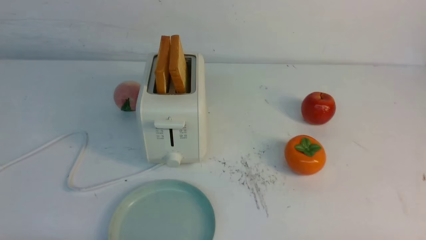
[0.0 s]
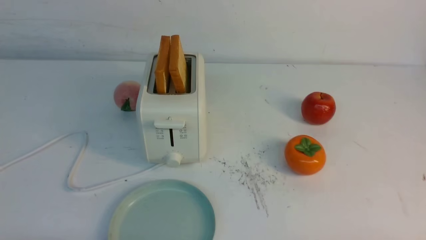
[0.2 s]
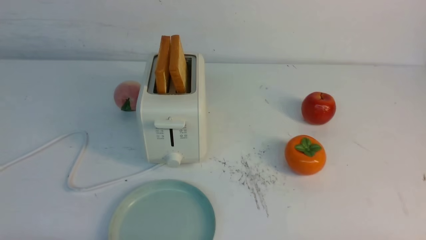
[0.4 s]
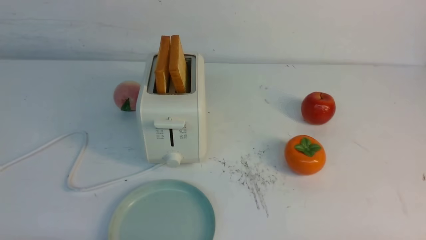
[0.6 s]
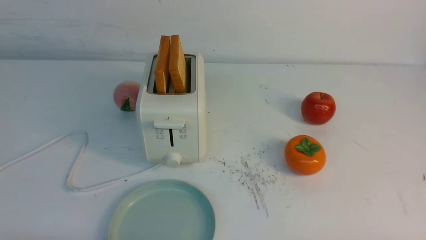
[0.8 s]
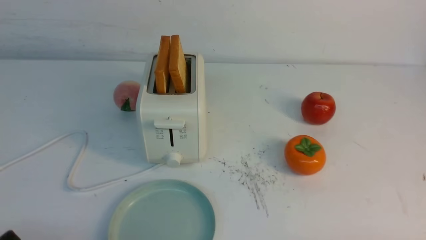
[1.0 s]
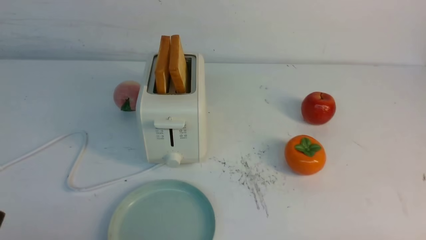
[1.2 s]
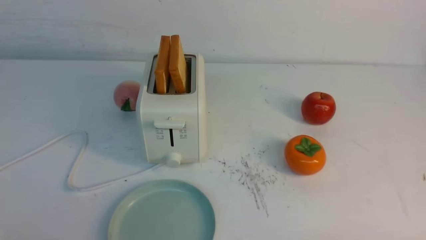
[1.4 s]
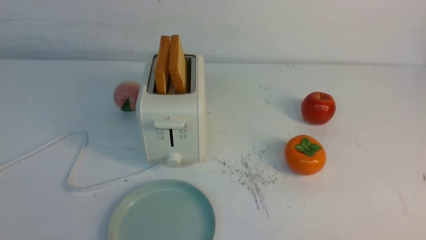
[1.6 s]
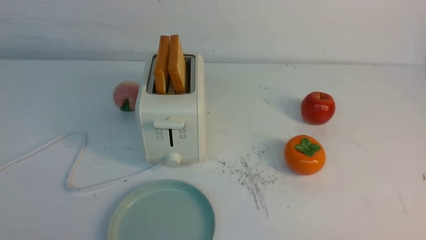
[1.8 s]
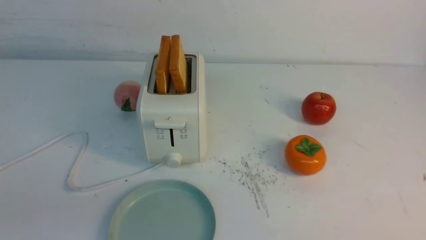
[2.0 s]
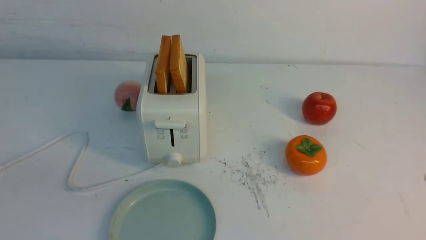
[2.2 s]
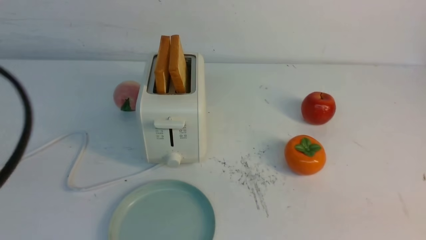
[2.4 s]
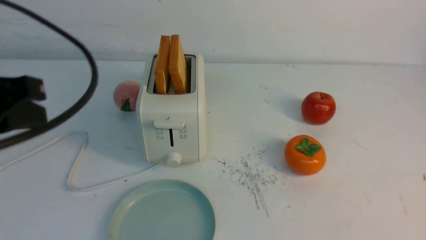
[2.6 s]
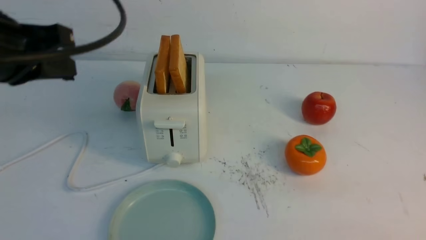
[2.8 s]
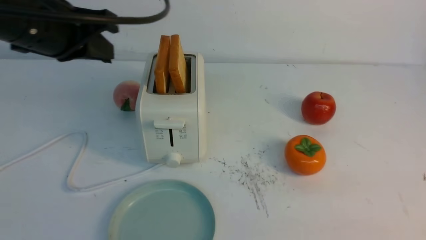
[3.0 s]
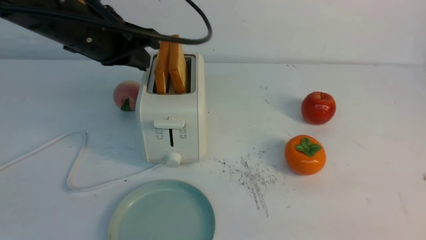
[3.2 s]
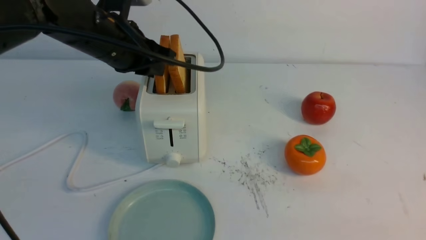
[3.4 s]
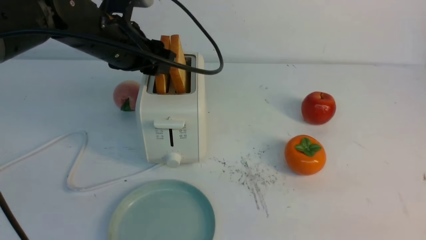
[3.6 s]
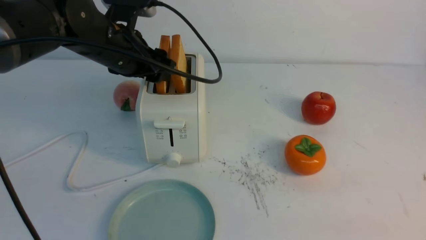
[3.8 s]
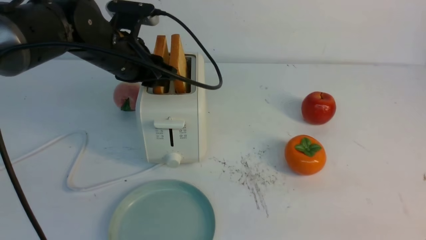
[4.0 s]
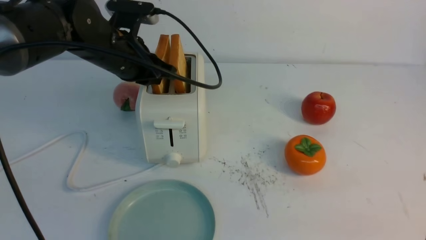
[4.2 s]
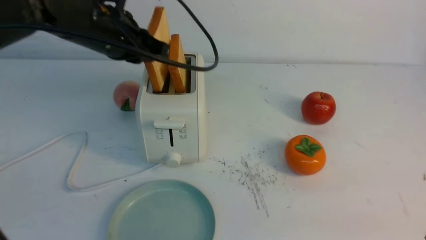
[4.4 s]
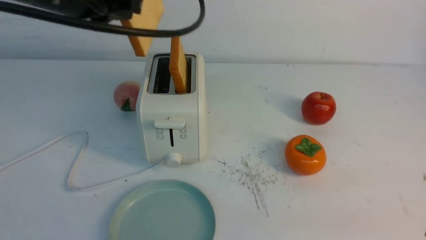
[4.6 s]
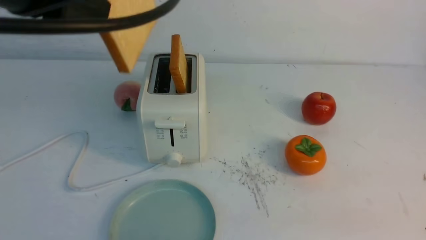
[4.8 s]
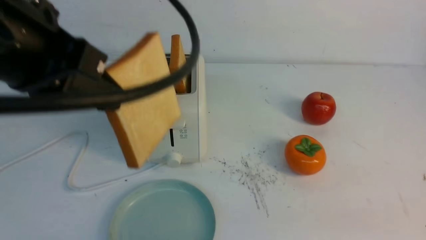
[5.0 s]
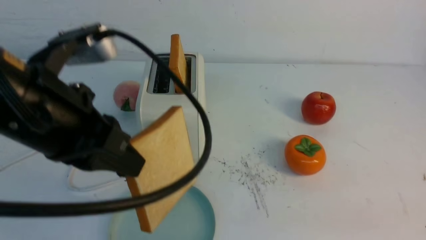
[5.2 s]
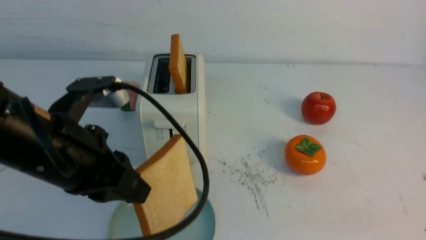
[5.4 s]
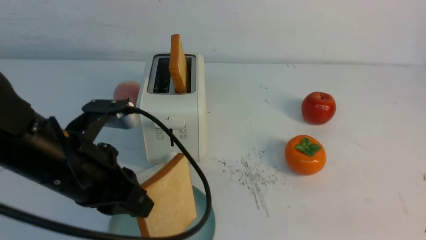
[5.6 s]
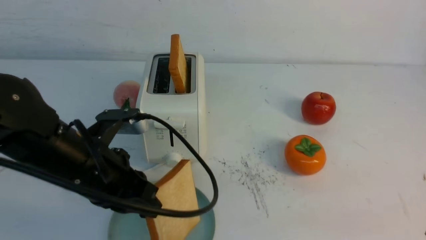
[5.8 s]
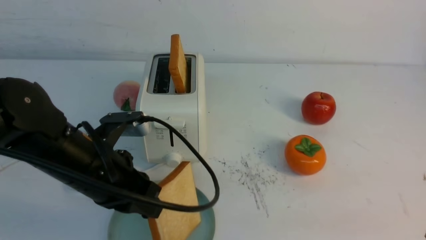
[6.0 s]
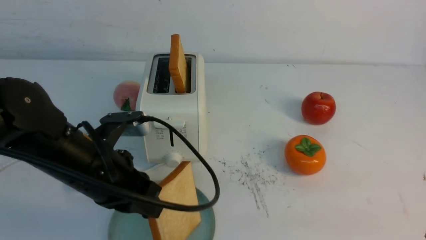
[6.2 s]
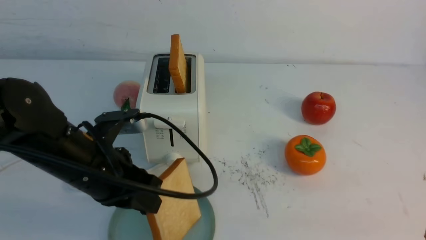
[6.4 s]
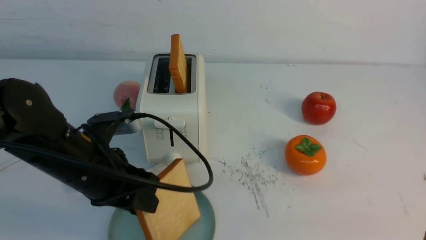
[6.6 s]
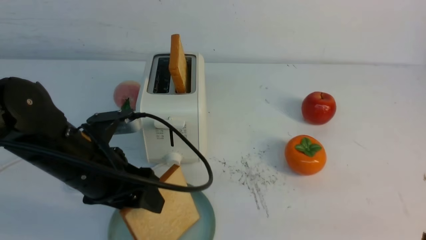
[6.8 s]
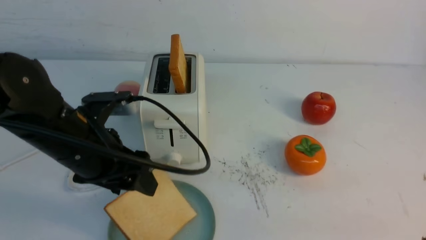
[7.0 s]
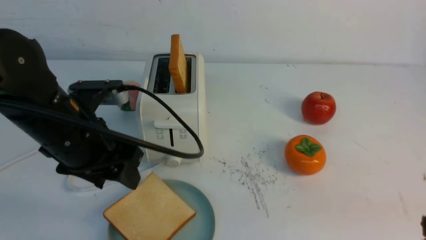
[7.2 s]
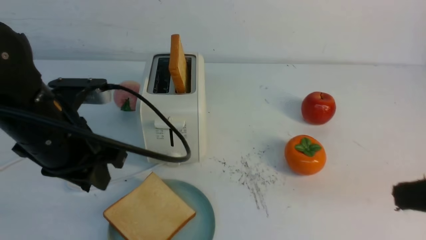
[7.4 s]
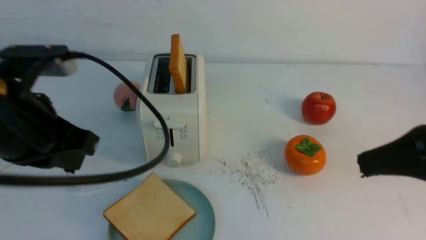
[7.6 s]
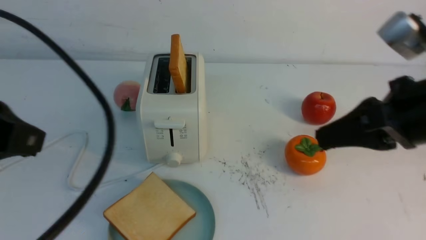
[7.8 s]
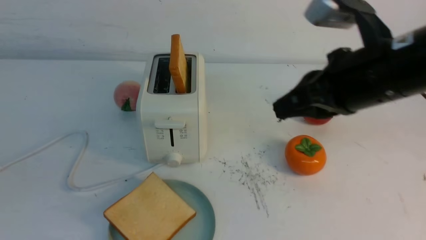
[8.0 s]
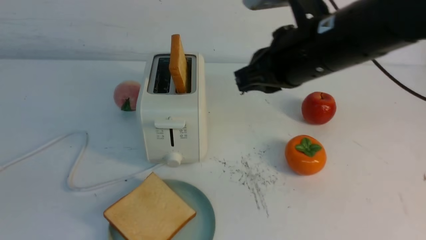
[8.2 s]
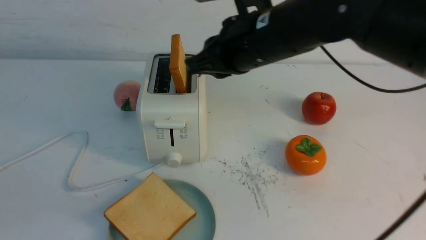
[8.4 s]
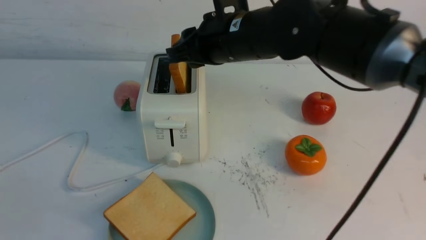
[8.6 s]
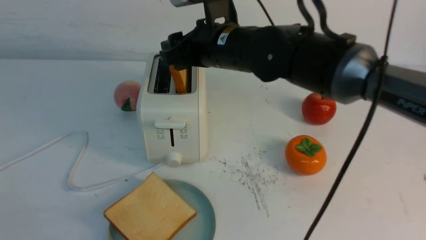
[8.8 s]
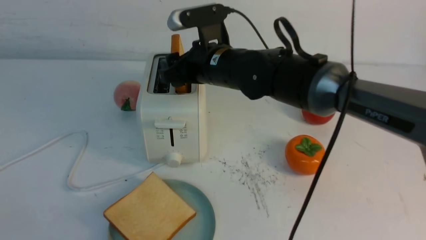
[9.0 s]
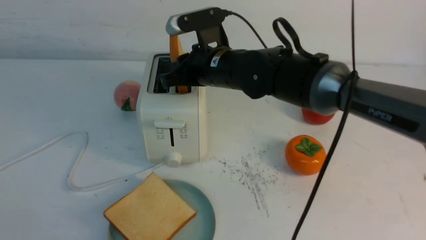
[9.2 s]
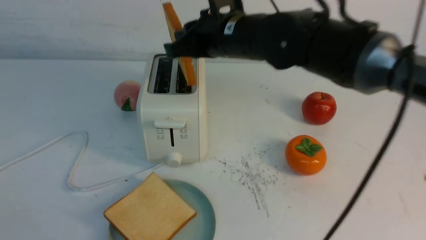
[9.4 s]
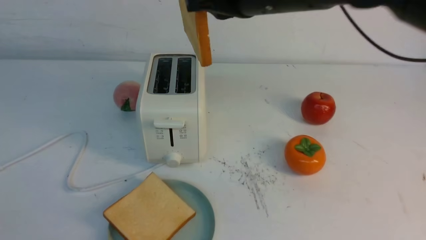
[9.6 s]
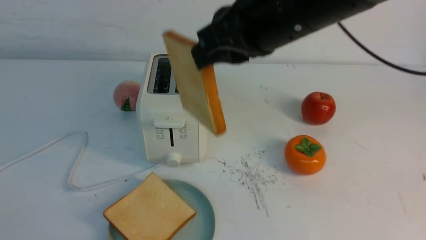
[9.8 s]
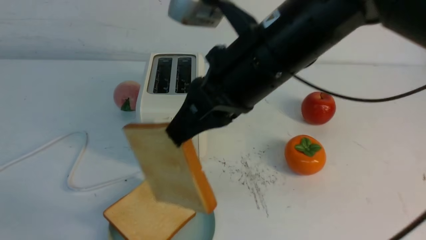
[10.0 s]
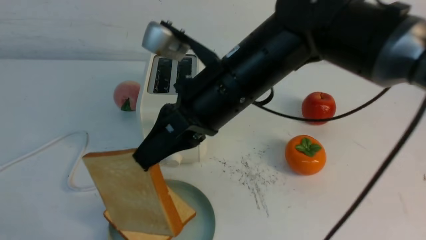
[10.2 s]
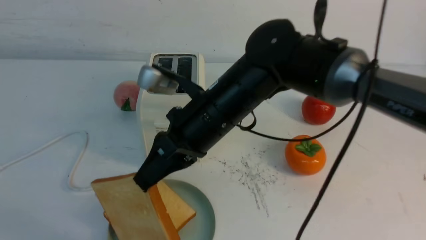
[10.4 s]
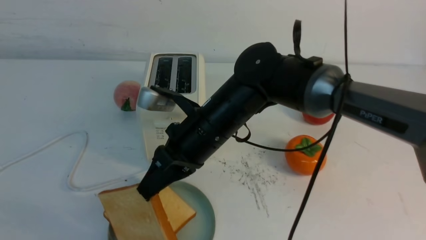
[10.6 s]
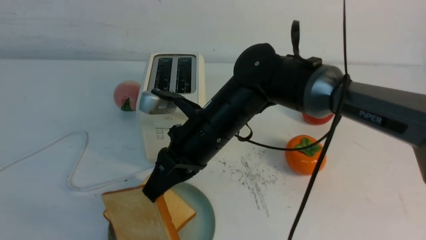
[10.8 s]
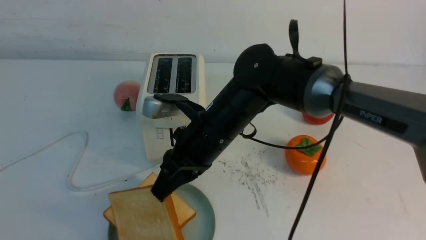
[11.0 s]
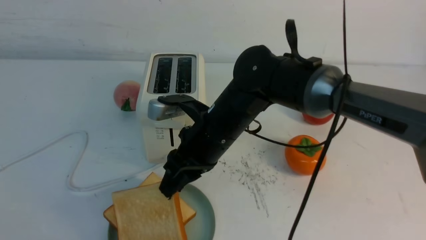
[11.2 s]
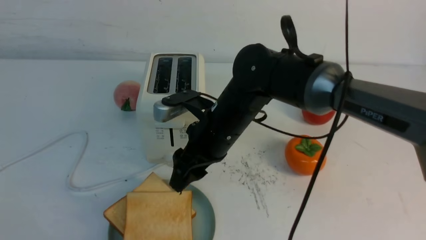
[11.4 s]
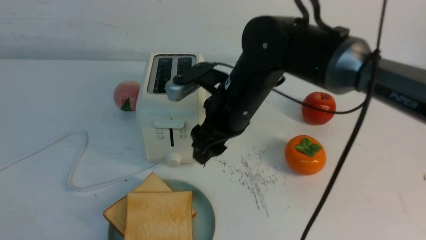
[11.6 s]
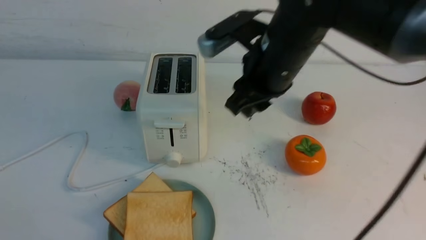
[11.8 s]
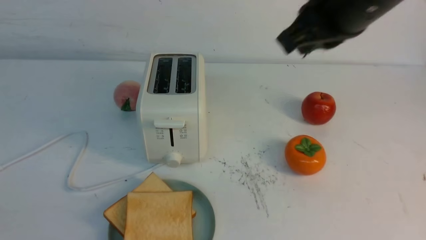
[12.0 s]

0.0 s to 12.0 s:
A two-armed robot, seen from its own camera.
Task of the whole recording: take toasted bread from bread machine on white table place on plate.
Step, 0.0 to 4.6 s: use the left arm to take out a slice of bread.
Step, 4.8 to 7.2 s: use the left arm to put a slice of bread into the empty plate.
Step, 7.4 to 9.6 s: use the right arm to take out a slice of bread.
Step, 9.8 to 11.2 s: use the right arm to put a slice of bread into the plate.
1.6 to 3.0 s: The left gripper moves forward and upward, roughly 30 cm.
3.0 to 4.4 s: The left gripper heads forward, covering some 5 cm, and opens, then closes once more.
4.4 to 6.0 s: The left gripper goes some 15 cm downward and backward.
6.0 to 7.6 s: The left gripper is displaced upward by roughly 10 cm, and opens and closes again. The right gripper heads forward and upward, covering roughly 10 cm.
7.6 to 9.0 s: The right gripper heads to the left and forward, covering roughly 30 cm, and opens its fingers. Meanwhile the left gripper travels backward by roughly 25 cm.
9.0 to 10.4 s: The right gripper heads backward, covering approximately 10 cm, and closes; the left gripper moves about 5 cm.
10.4 to 12.0 s: The right gripper heads upward and to the right, covering approximately 20 cm, and opens, then closes once more.

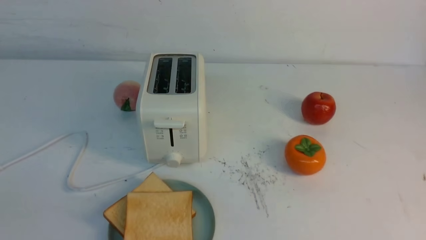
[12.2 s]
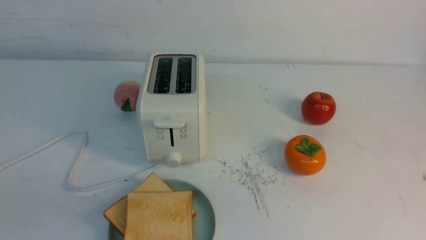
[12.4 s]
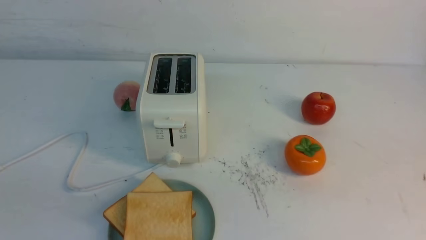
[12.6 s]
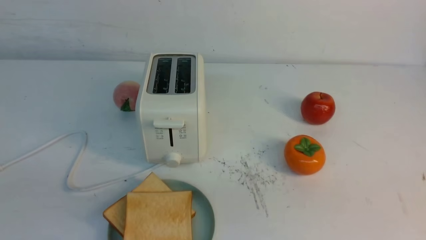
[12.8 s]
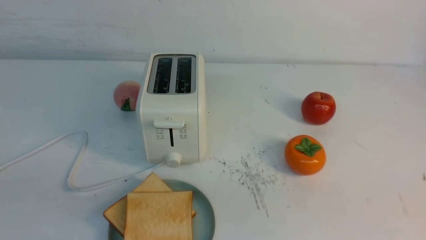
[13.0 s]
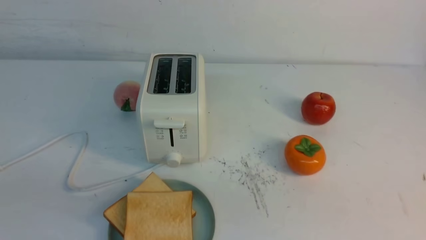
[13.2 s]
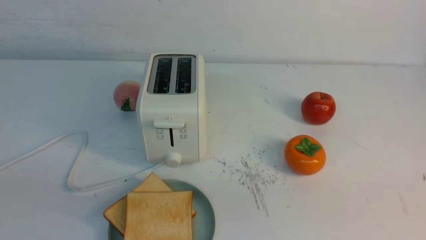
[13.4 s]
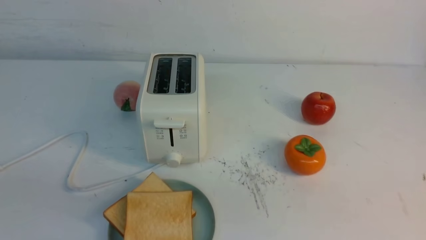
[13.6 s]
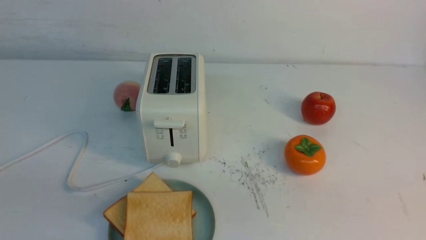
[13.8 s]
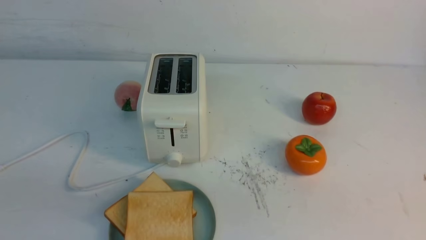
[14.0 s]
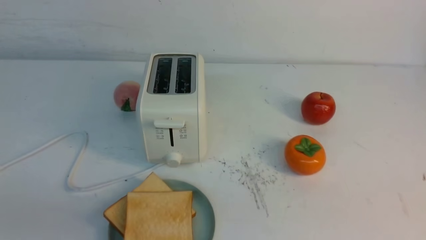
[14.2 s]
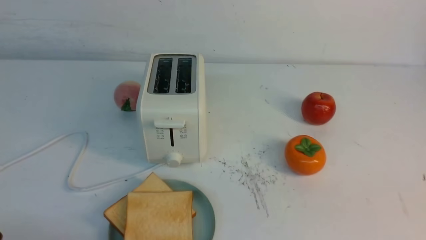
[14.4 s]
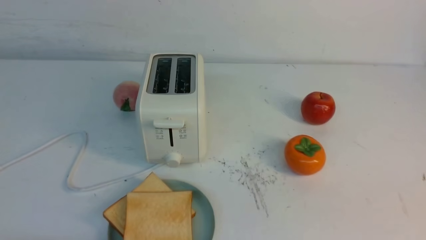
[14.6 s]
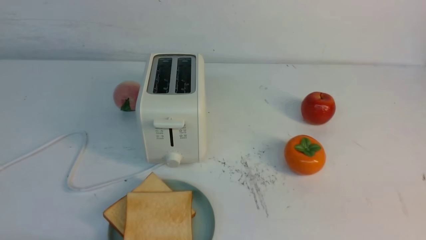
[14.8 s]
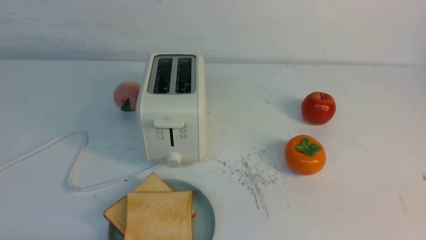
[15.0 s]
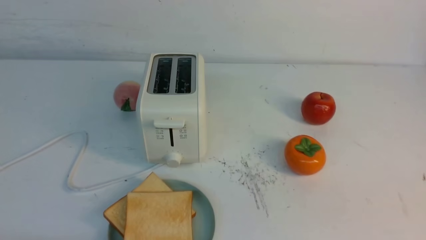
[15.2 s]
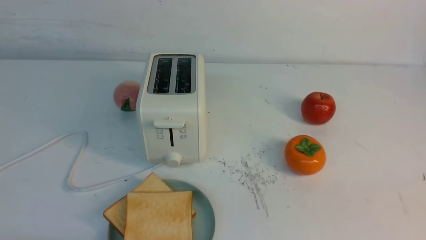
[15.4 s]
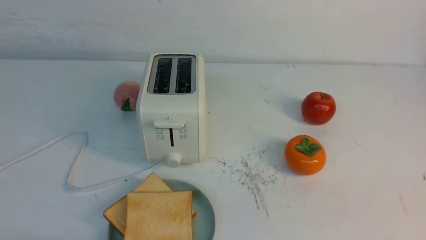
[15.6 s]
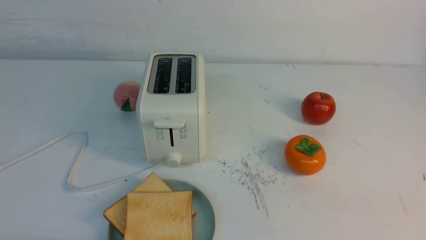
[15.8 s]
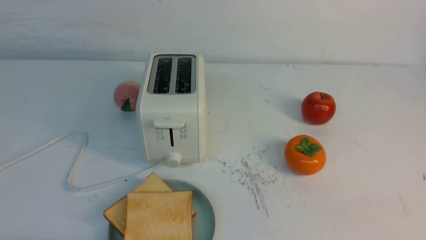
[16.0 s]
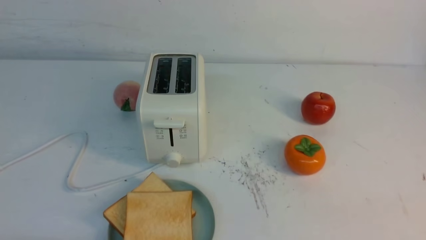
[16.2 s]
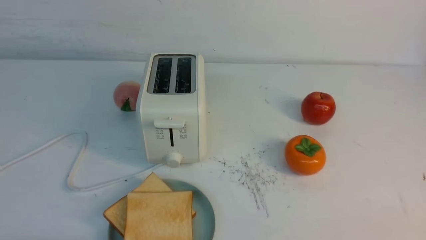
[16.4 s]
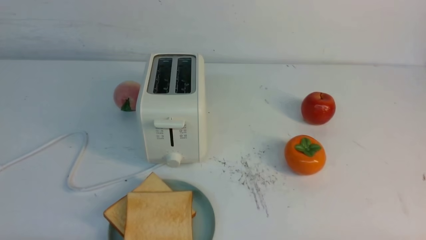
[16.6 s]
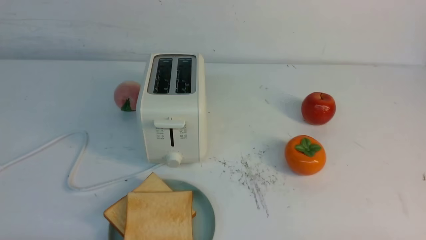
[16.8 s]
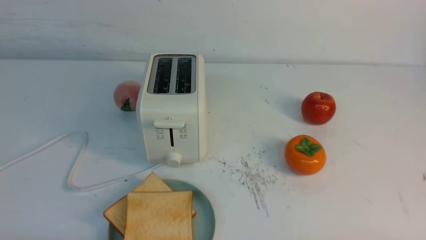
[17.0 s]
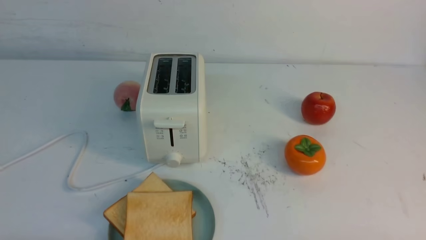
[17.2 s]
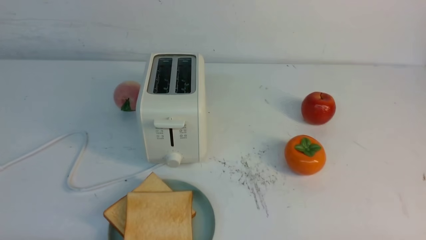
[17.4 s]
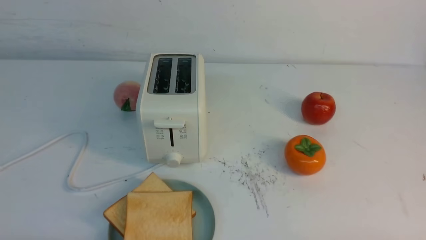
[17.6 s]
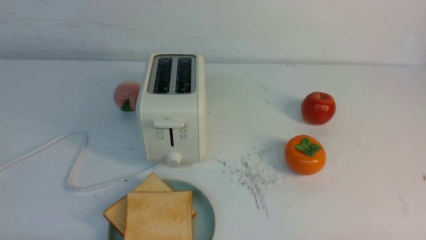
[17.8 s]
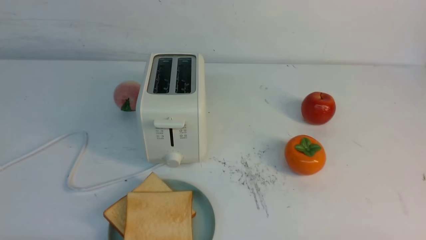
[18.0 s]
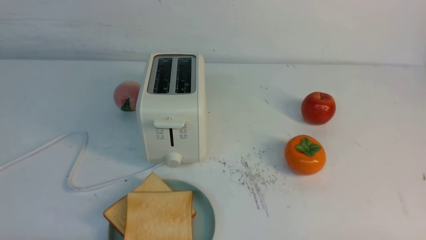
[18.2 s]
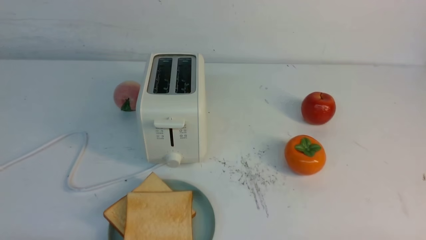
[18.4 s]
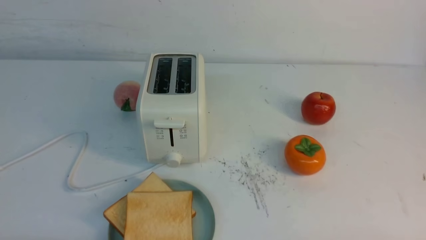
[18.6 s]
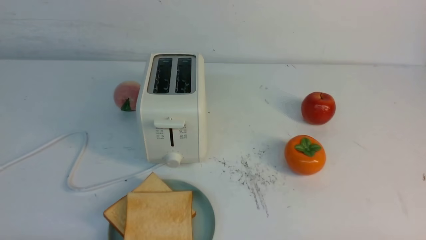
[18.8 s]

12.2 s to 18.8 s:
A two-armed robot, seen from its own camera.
Task of the whole recording: take toasted bread from bread machine on white table place on plate.
17.2 to 18.8 s: The two grippers keep their place.
